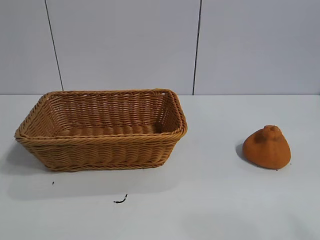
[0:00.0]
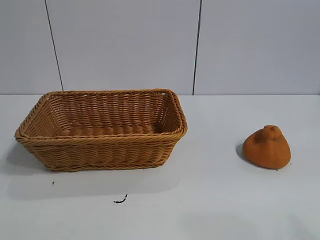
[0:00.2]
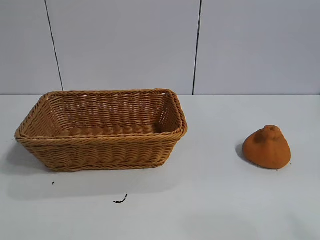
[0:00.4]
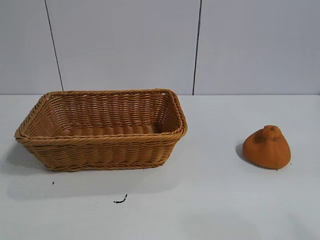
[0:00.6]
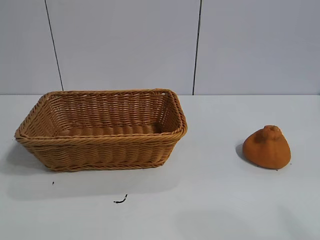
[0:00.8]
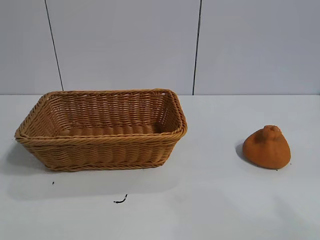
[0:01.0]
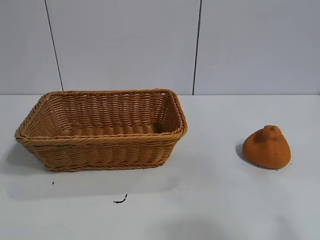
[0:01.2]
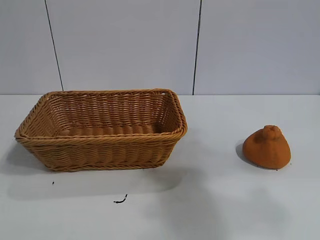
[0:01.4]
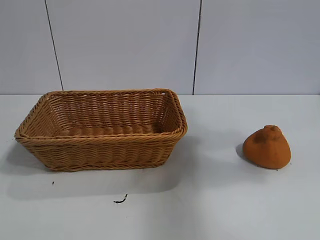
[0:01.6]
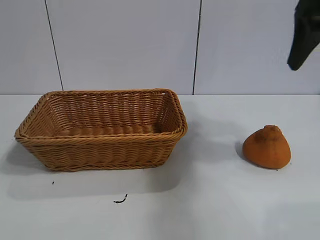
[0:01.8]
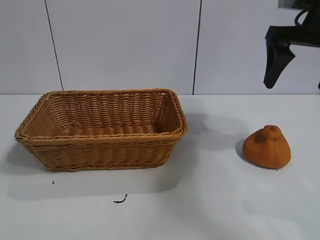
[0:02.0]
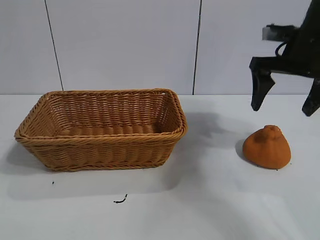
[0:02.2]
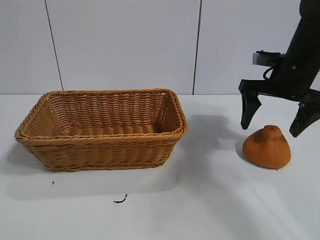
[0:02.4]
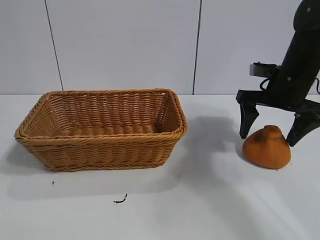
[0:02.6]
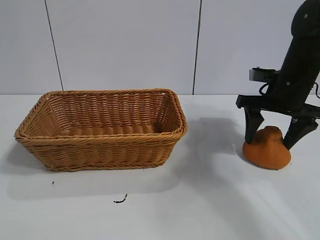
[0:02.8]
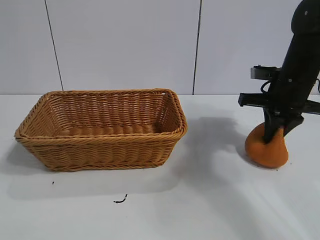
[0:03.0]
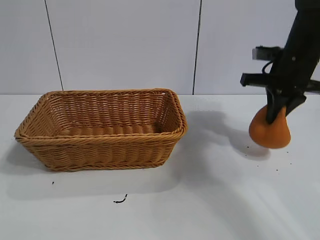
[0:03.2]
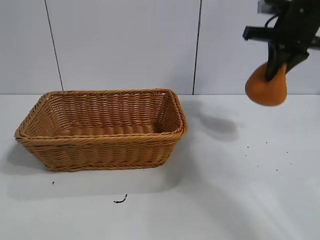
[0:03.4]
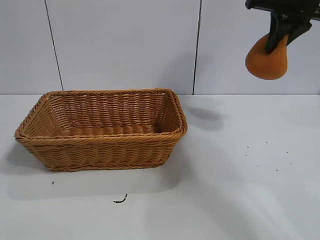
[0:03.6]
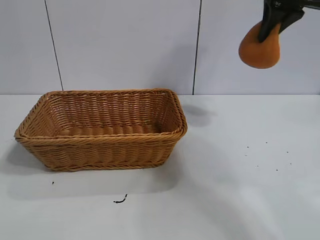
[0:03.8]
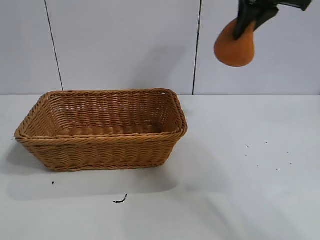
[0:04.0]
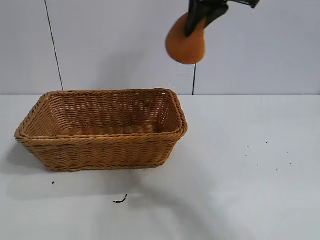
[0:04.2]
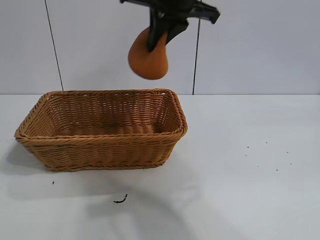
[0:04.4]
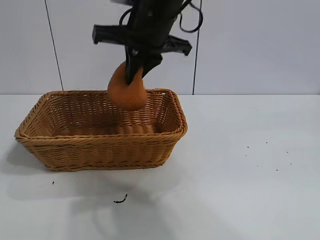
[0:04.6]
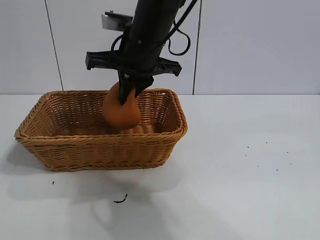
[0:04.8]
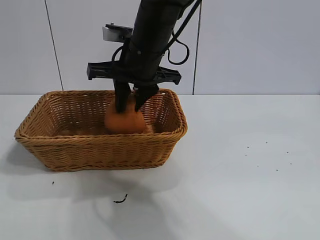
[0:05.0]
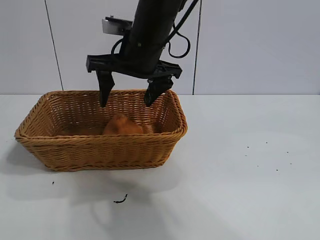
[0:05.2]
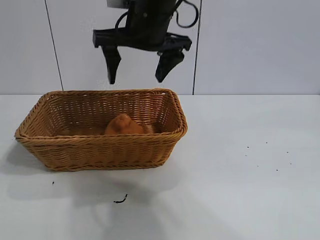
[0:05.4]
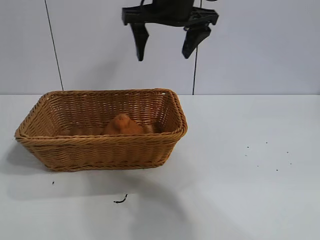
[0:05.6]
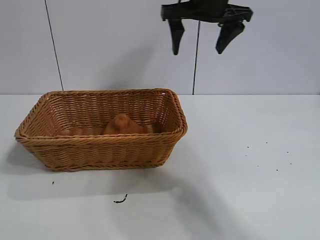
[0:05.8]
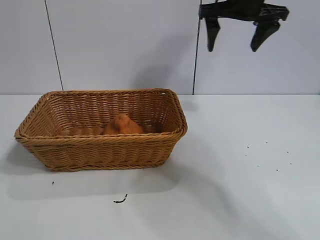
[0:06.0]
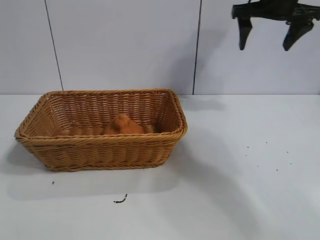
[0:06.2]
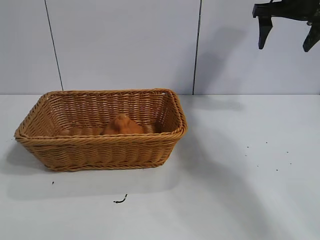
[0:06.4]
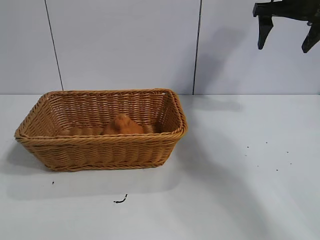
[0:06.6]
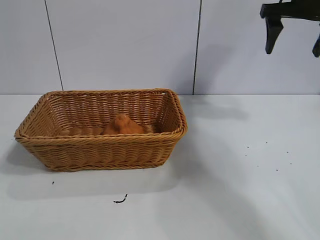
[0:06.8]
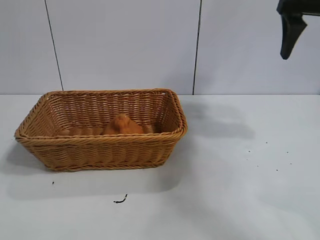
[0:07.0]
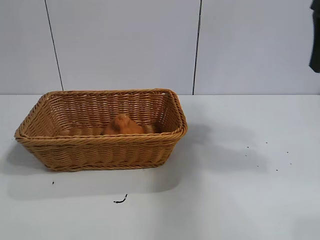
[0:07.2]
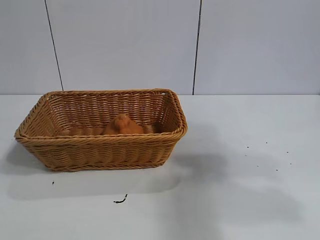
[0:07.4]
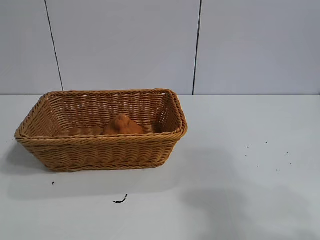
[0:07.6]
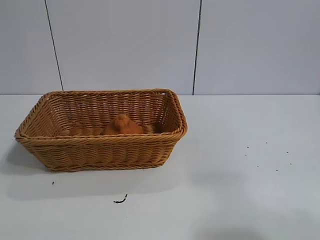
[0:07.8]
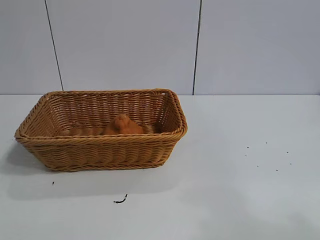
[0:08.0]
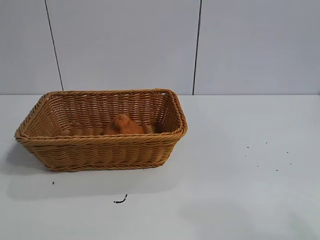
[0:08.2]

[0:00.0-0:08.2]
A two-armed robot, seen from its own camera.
Task of the whole recording: pick up the orange and put it into the basket.
Step, 0:00.8 to 0:02.8: Grasp the orange with right gripper.
Step, 0:03.2 to 0:05.0: Place the orange in the basket with right gripper.

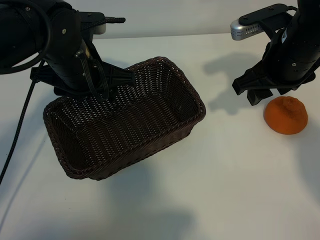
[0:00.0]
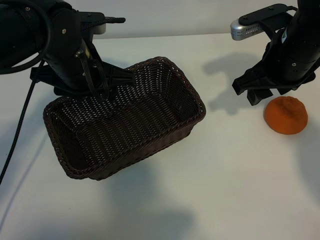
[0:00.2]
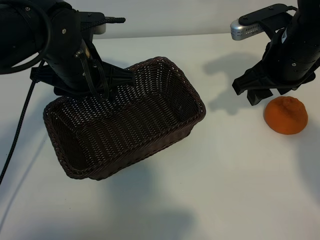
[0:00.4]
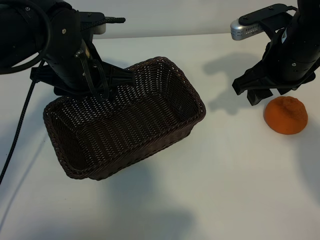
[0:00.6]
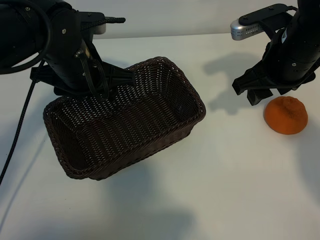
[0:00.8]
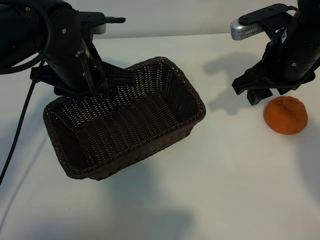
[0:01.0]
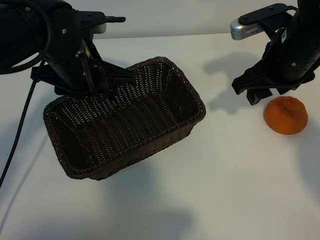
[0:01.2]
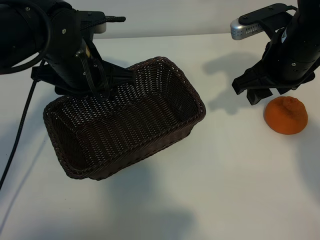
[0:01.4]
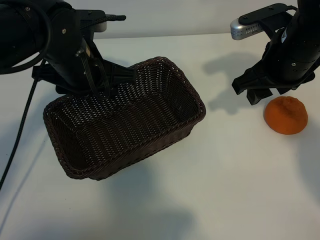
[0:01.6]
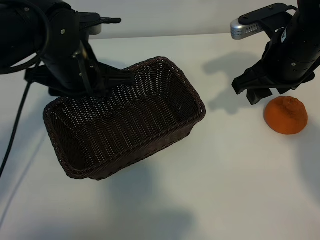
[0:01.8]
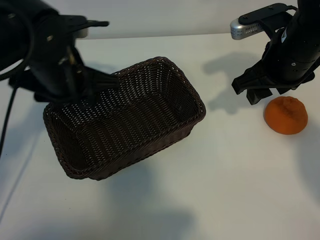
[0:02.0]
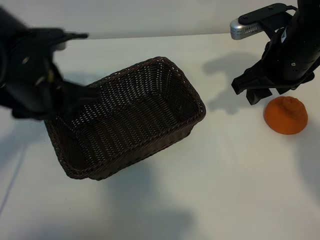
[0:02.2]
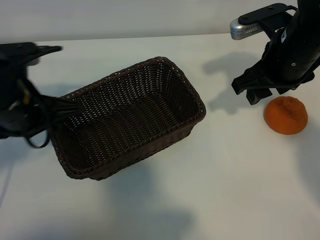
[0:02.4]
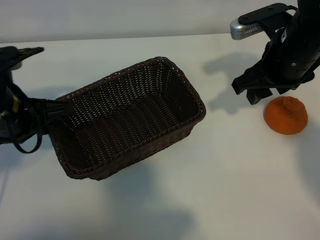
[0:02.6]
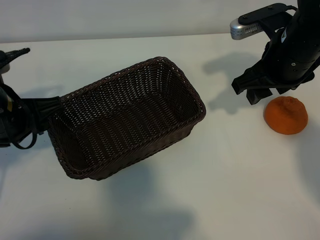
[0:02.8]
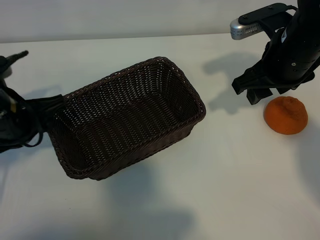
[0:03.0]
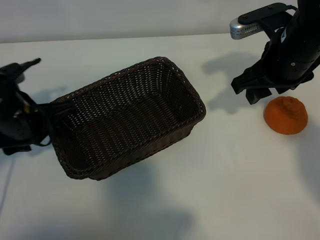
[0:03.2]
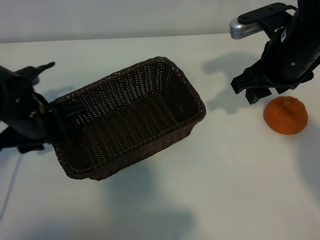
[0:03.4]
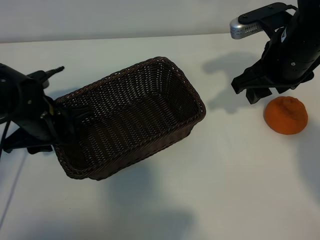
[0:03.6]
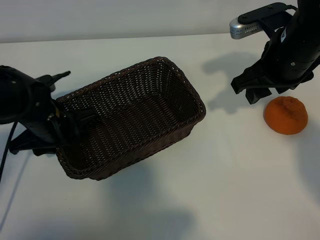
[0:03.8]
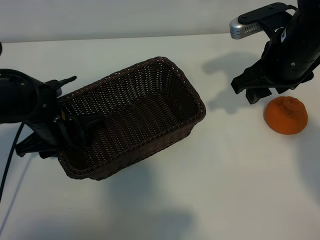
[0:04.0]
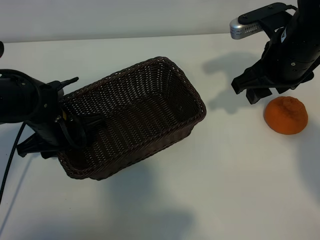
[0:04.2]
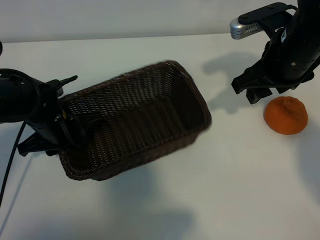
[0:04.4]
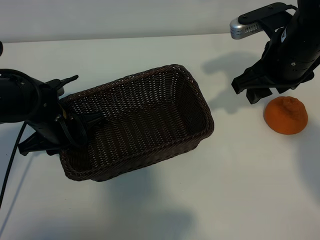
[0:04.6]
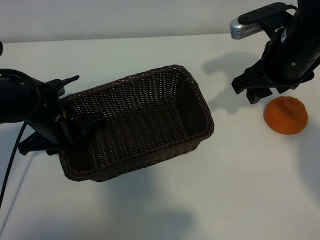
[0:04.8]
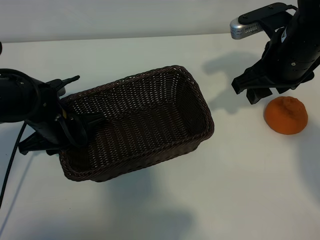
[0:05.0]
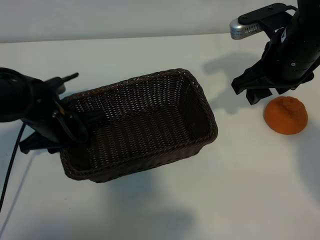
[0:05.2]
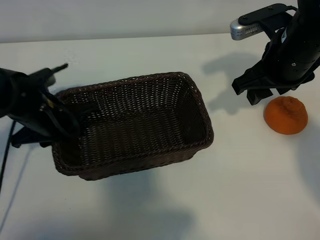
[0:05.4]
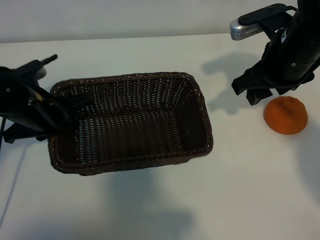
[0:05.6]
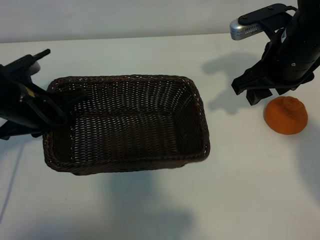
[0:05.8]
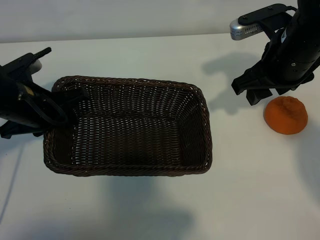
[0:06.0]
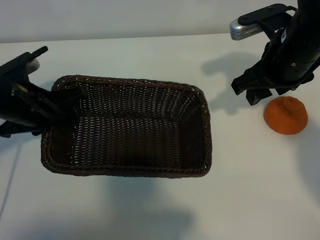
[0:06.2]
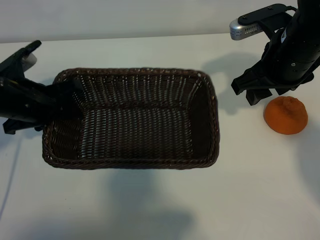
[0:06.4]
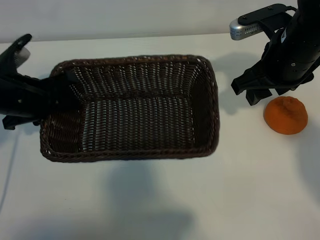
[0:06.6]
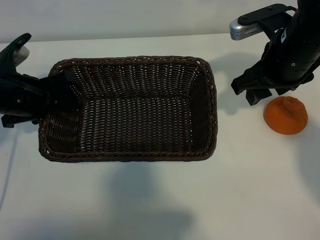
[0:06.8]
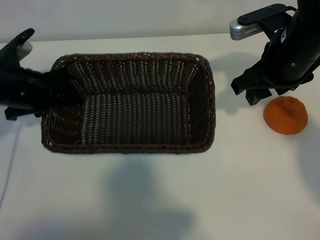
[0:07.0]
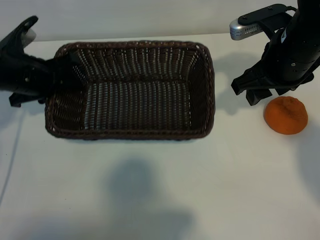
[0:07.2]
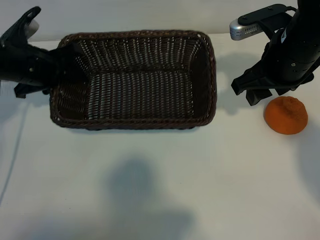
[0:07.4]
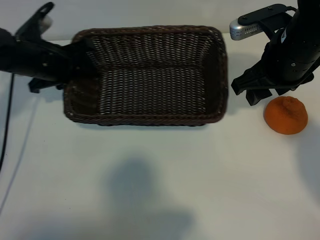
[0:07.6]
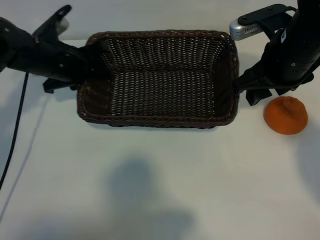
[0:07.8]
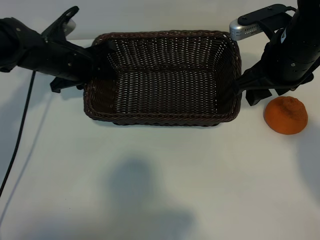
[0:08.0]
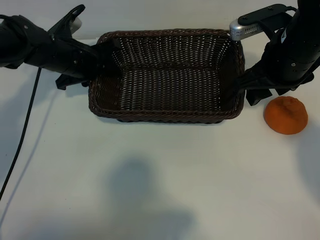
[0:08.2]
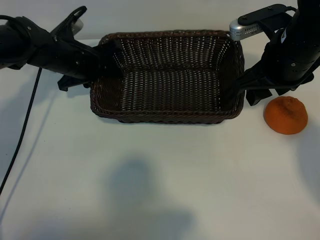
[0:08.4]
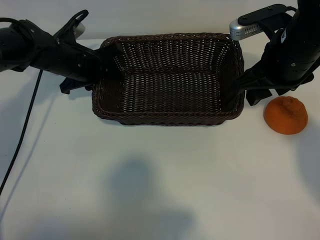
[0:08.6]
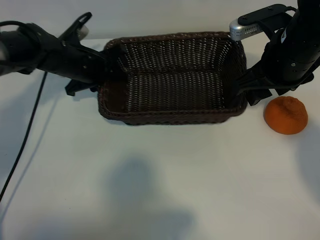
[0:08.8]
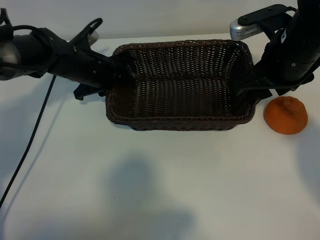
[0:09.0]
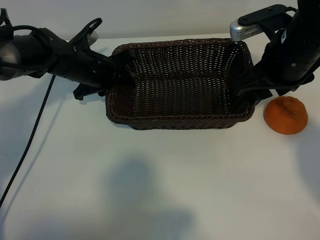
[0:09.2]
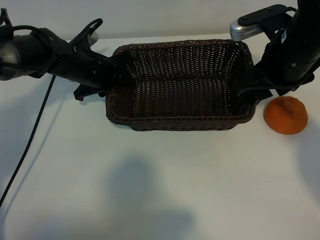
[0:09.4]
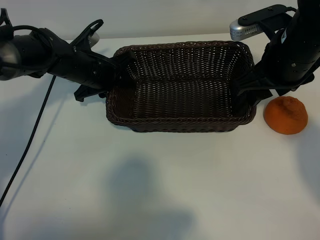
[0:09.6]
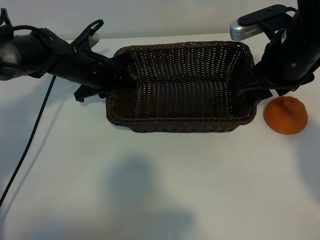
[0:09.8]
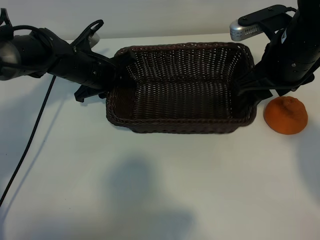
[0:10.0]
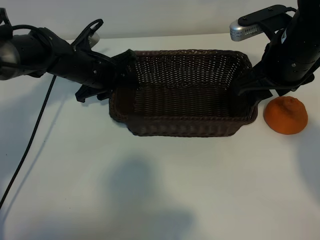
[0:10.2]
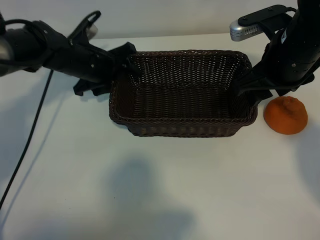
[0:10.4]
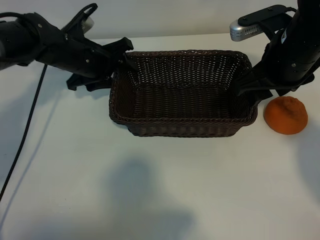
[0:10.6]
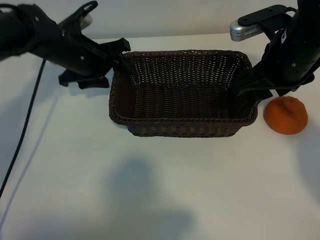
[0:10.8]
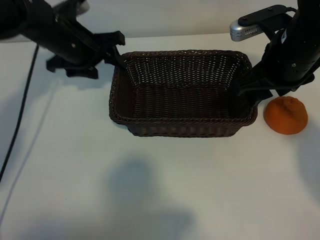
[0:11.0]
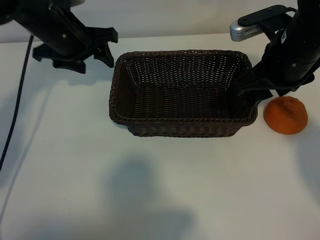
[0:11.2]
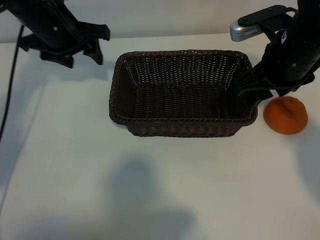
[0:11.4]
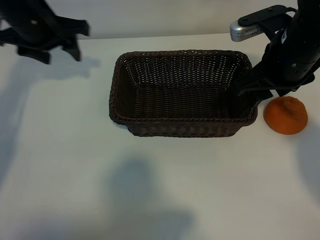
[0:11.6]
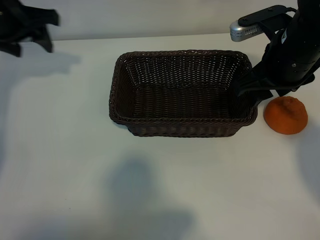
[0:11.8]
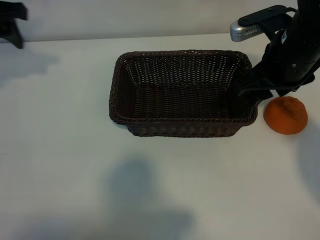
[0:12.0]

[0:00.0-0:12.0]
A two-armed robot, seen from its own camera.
Task of the whole recording: pick up the orange and put it into the basket.
Step, 0:01.2 to 0:04.4: Grasp the basket with left gripper.
Step, 0:04.8 to 0:10.2: Place the basket in the center of view with left gripper.

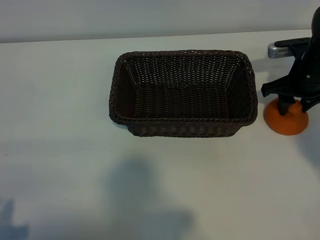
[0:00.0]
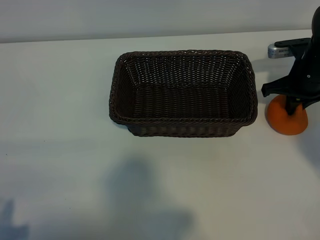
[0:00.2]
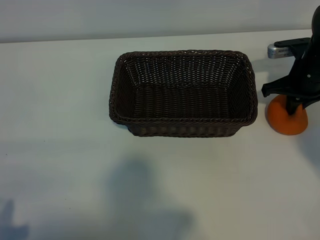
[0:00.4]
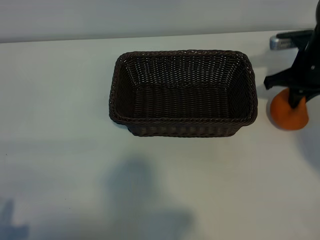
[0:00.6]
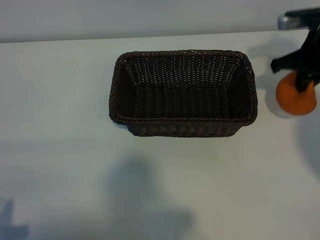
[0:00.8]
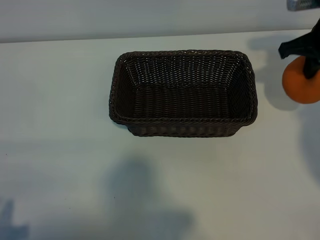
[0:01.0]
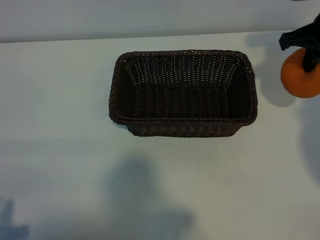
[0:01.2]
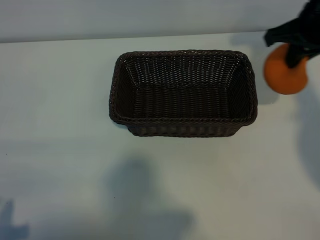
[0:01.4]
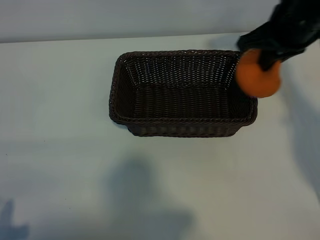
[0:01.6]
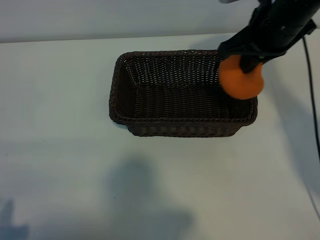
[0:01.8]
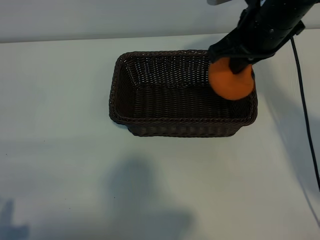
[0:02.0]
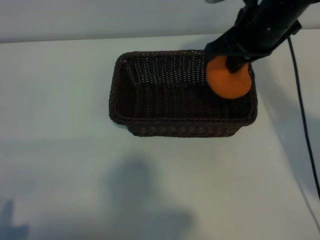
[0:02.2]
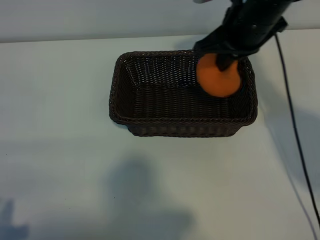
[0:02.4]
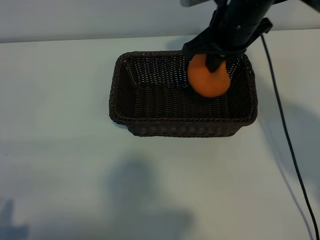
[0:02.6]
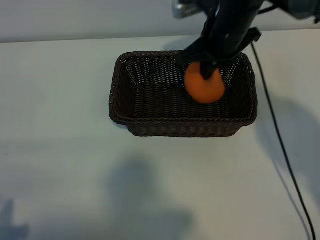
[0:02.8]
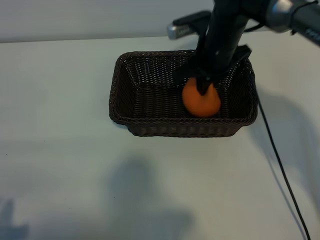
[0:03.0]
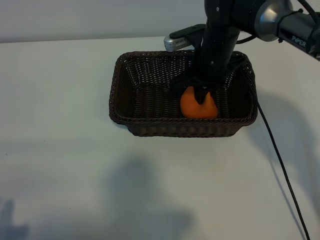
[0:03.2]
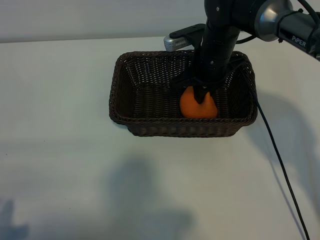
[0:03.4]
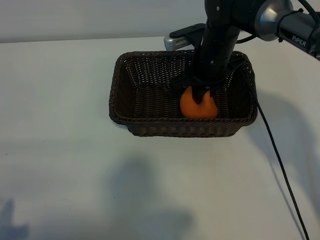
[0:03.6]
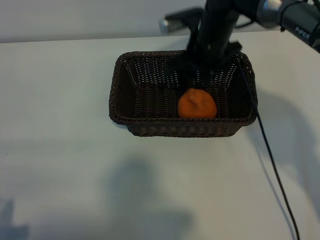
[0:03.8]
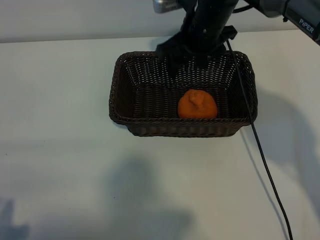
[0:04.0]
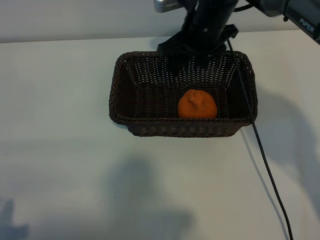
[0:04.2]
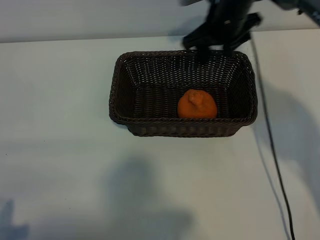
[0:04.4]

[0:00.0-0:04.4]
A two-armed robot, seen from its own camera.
Task of the whole recording: pick up the orange and put it into the basket.
Step, 0:00.4 to 0:03.6: Place the orange in the basket with right gripper.
